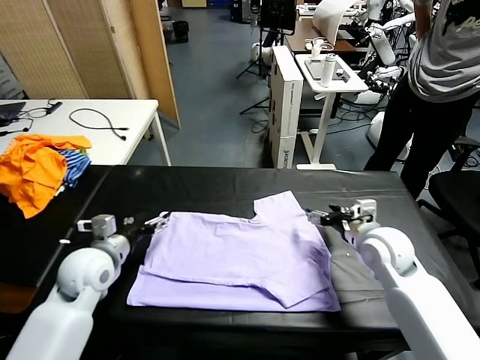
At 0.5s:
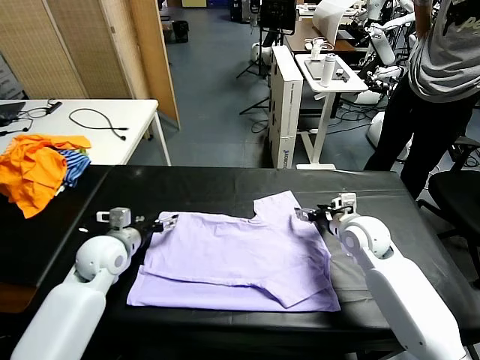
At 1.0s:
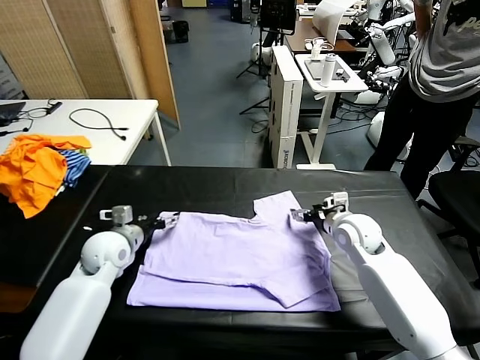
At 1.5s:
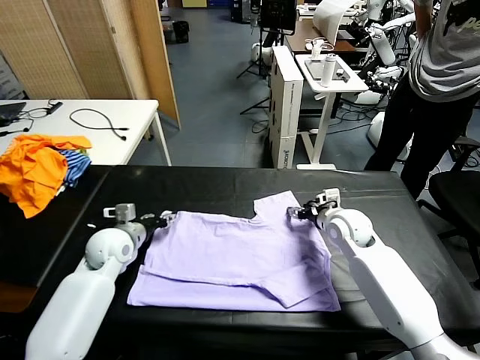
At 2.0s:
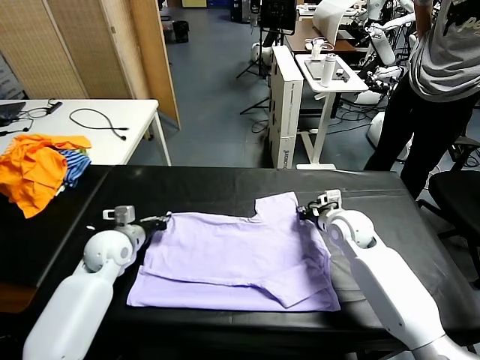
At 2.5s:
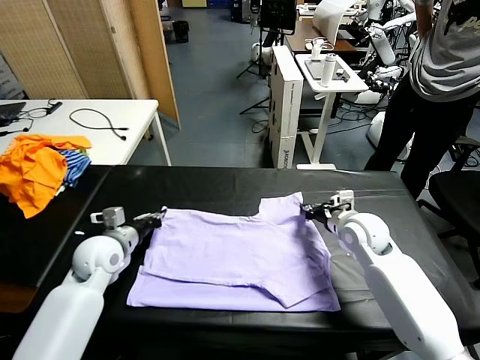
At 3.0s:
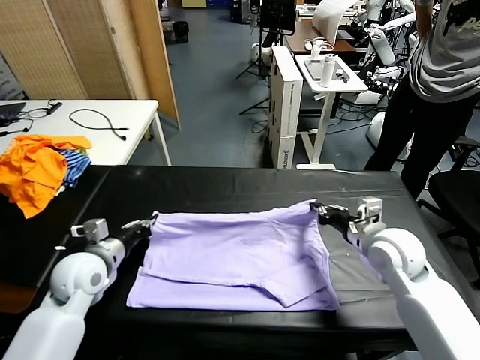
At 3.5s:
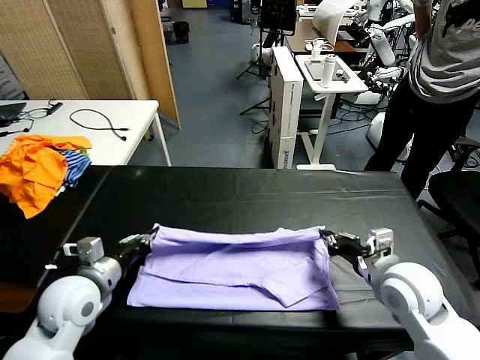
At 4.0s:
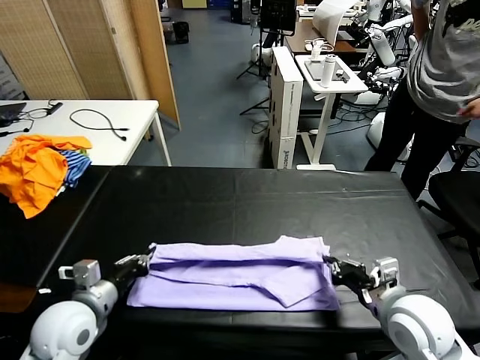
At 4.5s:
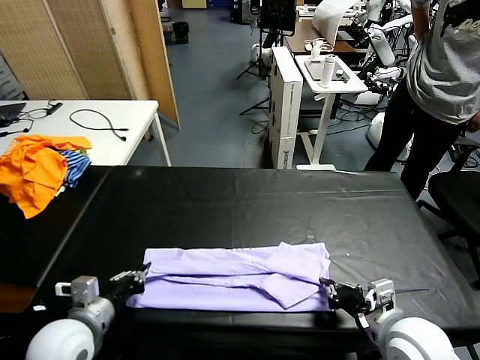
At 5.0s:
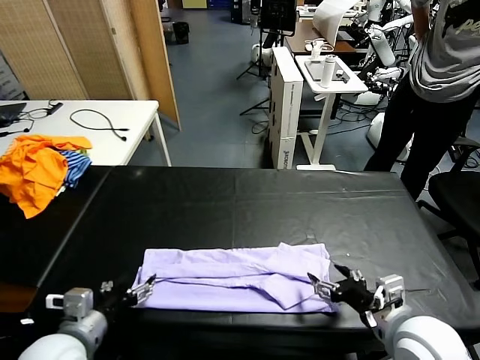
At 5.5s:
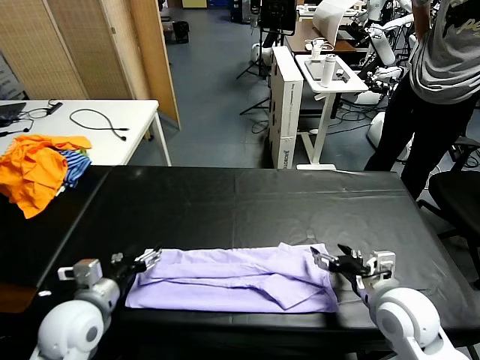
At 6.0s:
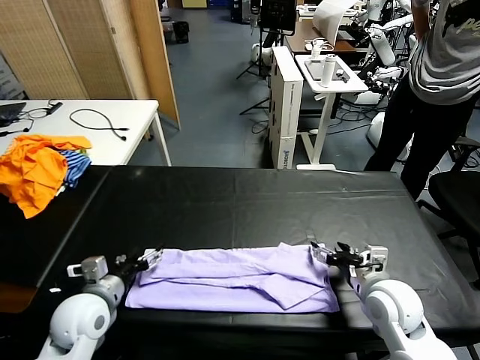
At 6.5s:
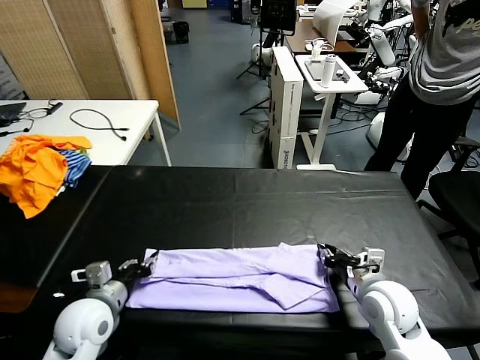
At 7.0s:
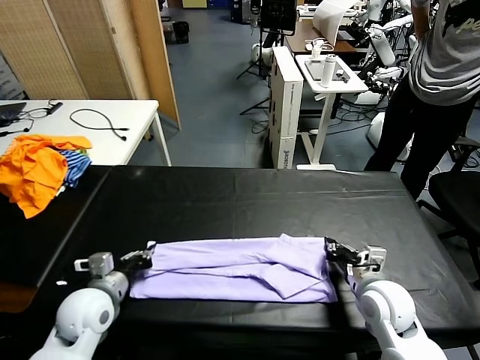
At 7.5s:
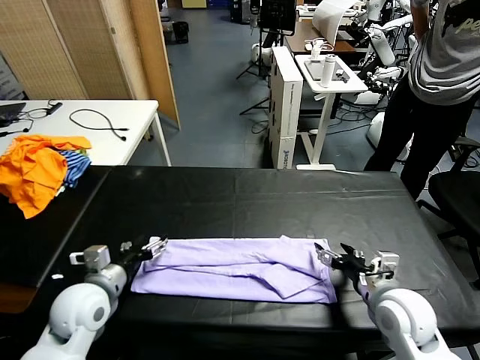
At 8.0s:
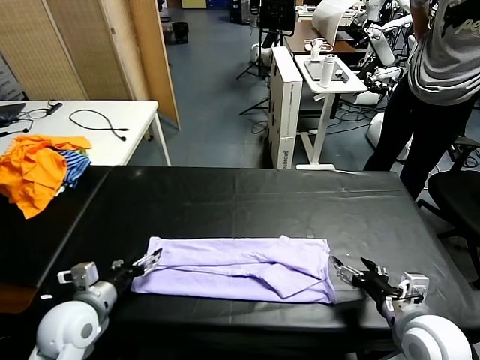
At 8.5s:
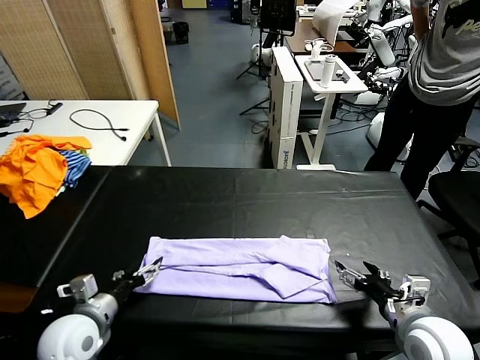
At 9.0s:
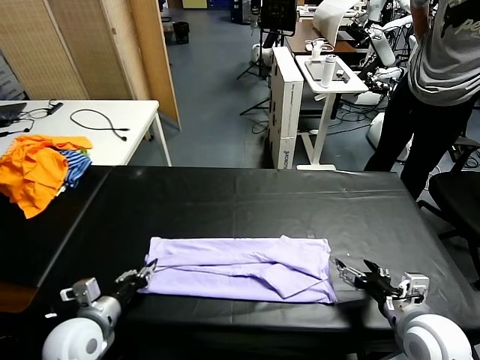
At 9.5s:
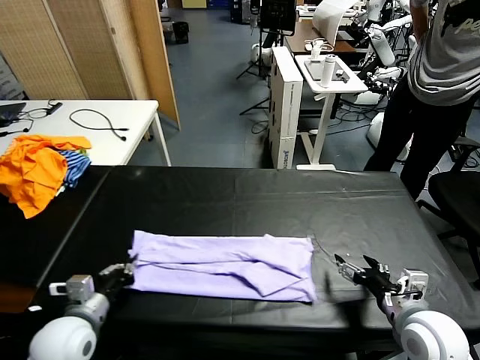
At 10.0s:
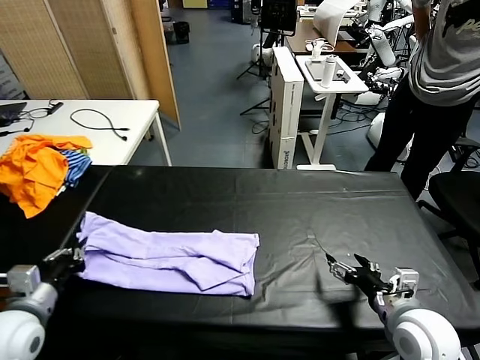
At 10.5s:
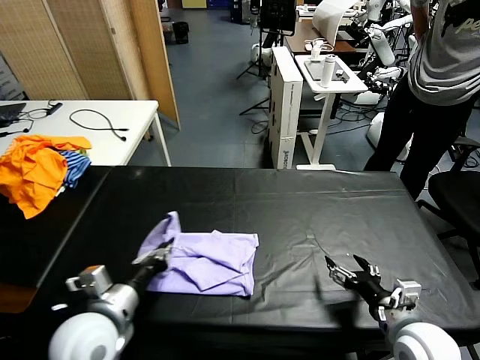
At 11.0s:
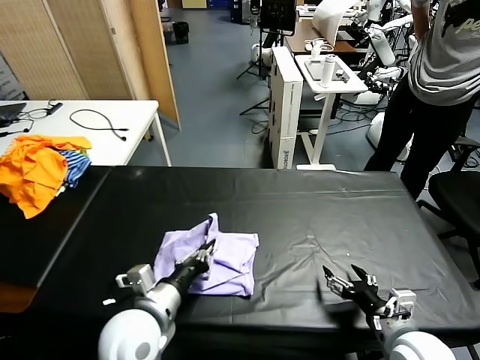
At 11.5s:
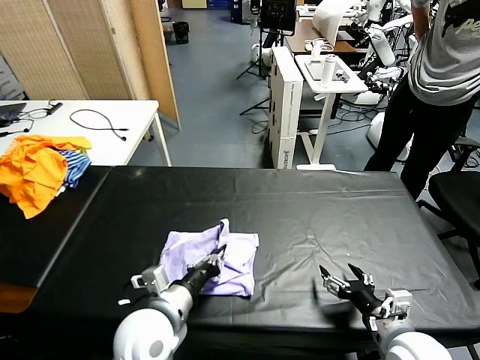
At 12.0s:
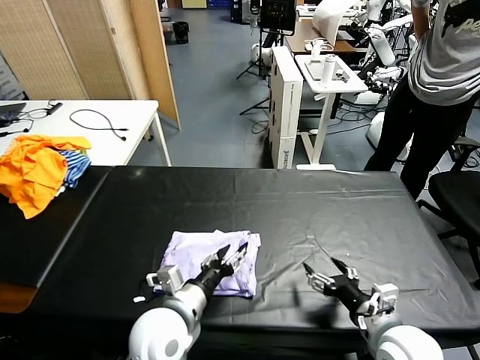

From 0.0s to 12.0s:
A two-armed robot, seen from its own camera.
Task of the whole recording: fold and organize the clothes.
Step, from 0.0s to 1.5s: use both grippers simultaneously to clamp the upper edge of the clothing fabric.
Step, from 2.0s to 7.5s: use both grippers to drag the upper edge of the fabric backward and fold it over the lower edge.
Step, from 8.0s to 9.0s: use the left gripper to clamp the left edge of the fabric.
From 0.0s to 2.0s: The right gripper closes. The left gripper travels forward by some 5 cm, and closes its fingers.
From 2.0s to 4.0s: The two grippers go approximately 20 cm backward.
From 4.0s to 6.0s: The right gripper is displaced forward by roughly 5 cm, and opens up, while the left gripper opens up.
From 6.0s to 8.0s: The right gripper goes about 10 cm backward, and closes, then reopens. The left gripper closes, then opens again.
From 8.0s to 10.0s: The left gripper moves upward and to the left, some 10 cm, and closes up.
From 10.0s to 12.0s: The left gripper heads to the right, covering about 25 cm, and opens, while the right gripper shifts by approximately 5 cm.

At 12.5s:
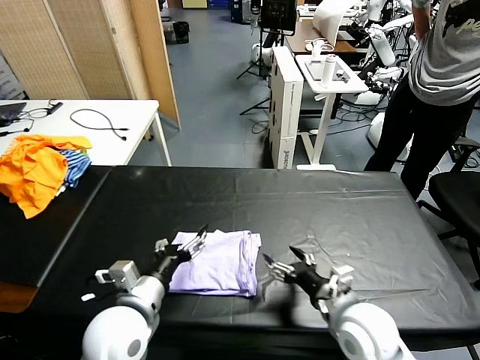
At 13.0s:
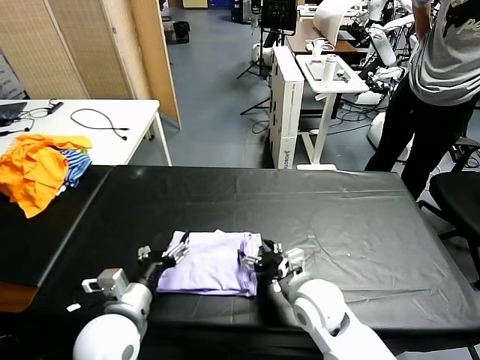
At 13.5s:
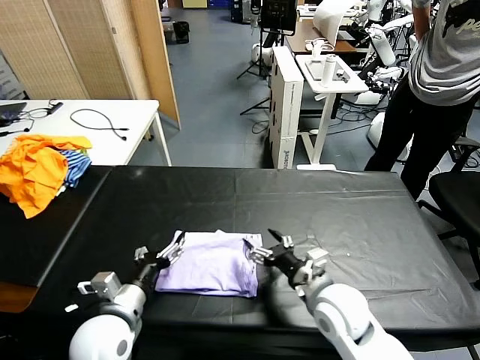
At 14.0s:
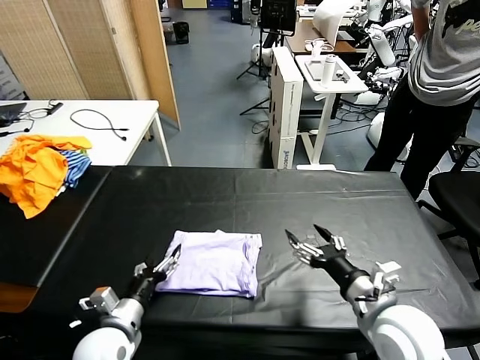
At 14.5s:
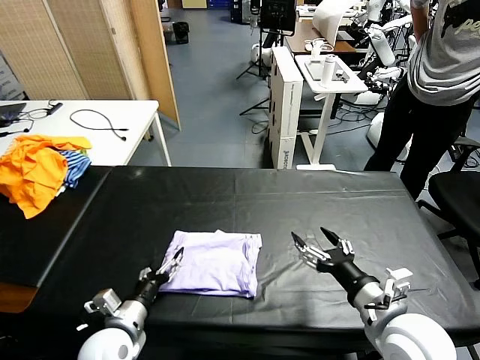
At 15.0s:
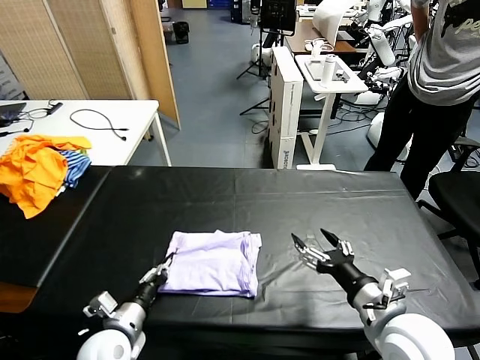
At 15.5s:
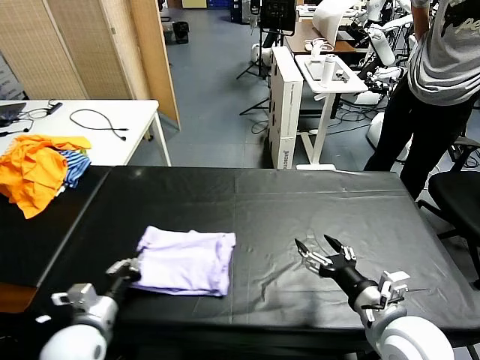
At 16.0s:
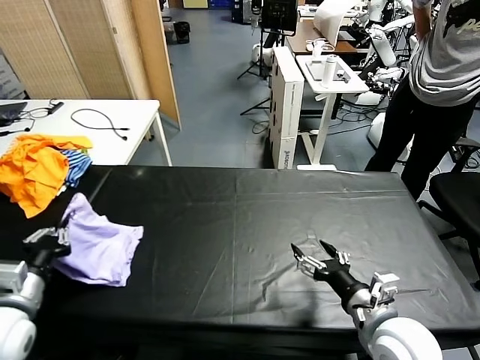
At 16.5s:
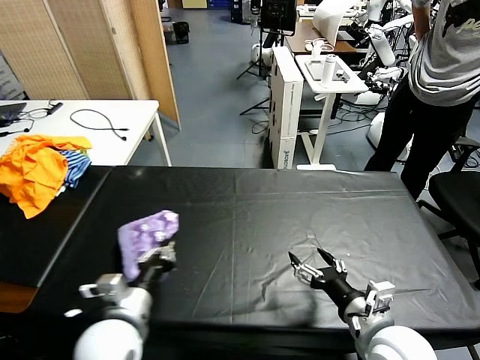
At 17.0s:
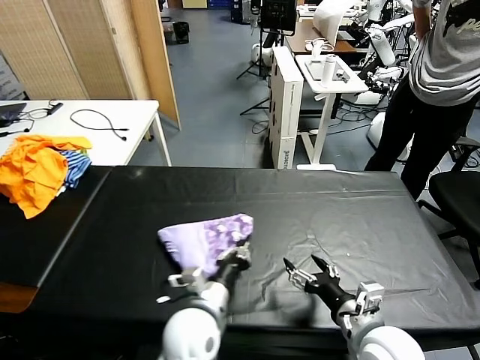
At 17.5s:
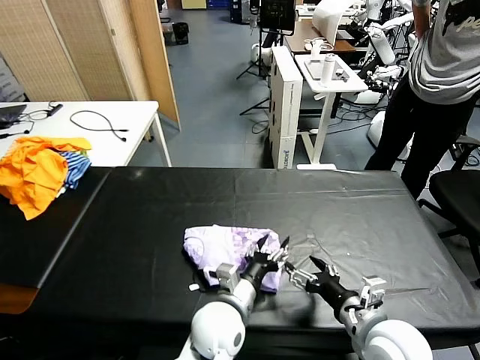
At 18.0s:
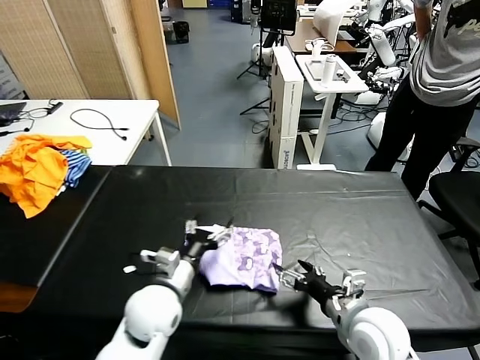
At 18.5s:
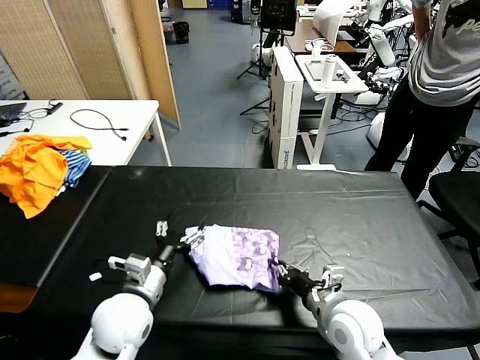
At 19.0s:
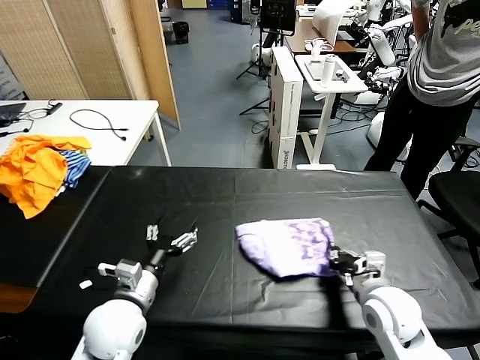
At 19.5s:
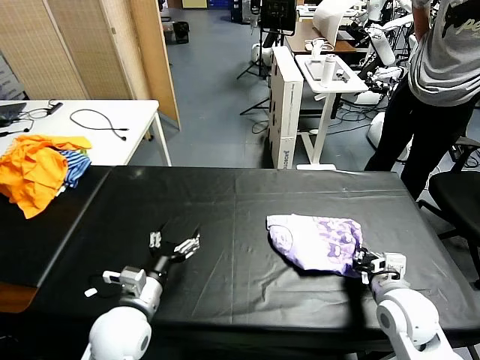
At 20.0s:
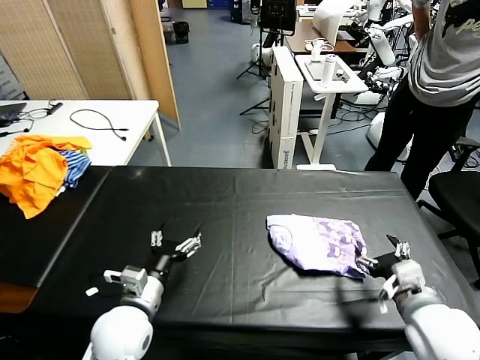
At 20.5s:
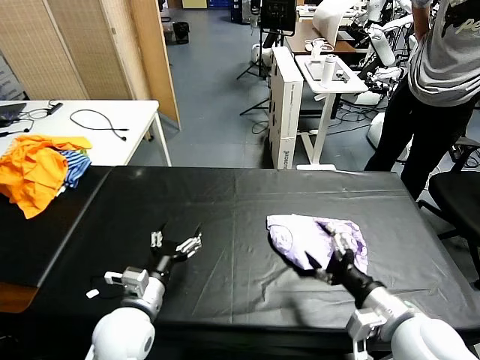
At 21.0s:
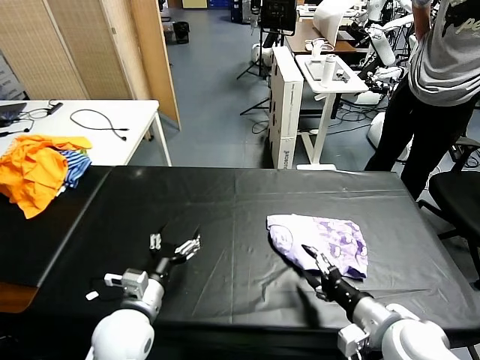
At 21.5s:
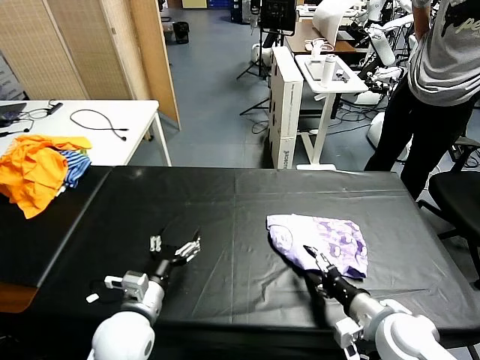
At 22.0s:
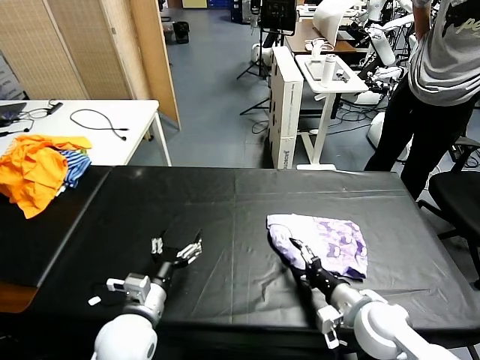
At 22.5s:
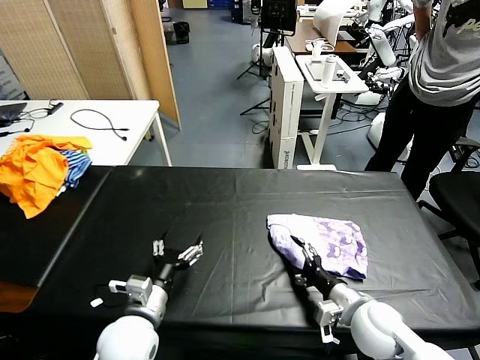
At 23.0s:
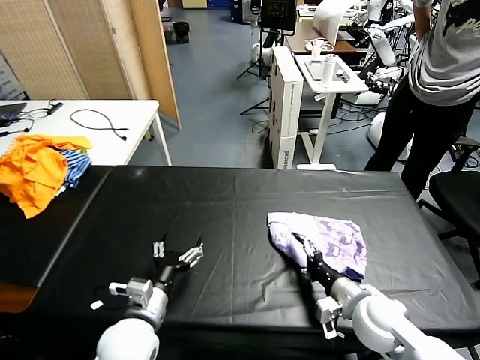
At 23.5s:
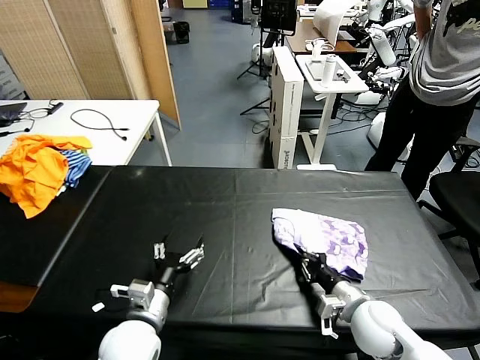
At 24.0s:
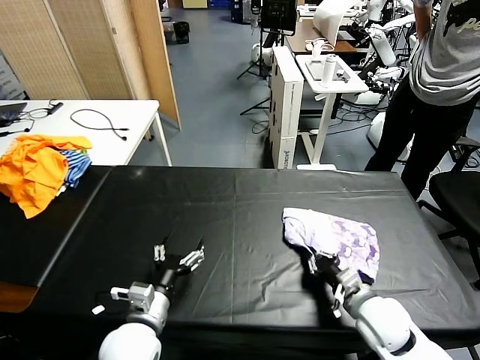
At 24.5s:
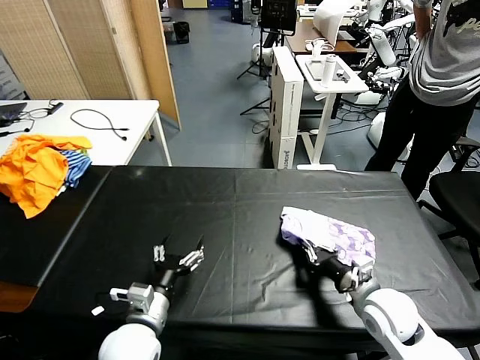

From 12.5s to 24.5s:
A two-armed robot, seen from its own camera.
Task of the whole recording: fold and organize the clothes.
Step, from 14.0s to 17.5s: Flip the folded clothes over with left gripper.
From 12.5s to 14.5s: The right gripper moves to the right, upward and backward, approximately 10 cm; the left gripper is displaced downward and to the left by roughly 15 cm.
From 14.5s to 16.5s: The left gripper heads upward, covering approximately 10 cm, reaches some 10 cm to the left, then returns, and closes.
From 16.5s to 18.5s: The left gripper moves some 15 cm to the right and comes back, and opens its fingers, while the right gripper travels forward and downward by about 10 cm, and closes its fingers.
From 18.5s to 20.5s: The right gripper shifts roughly 10 cm to the right, upward and backward, and opens.
From 20.5s to 22.5s: The right gripper heads downward and forward, covering about 10 cm.
From 22.5s to 24.5s: The right gripper closes its fingers.

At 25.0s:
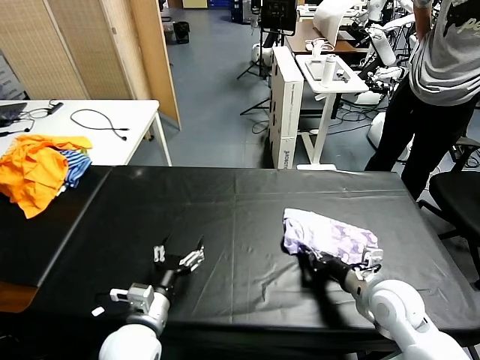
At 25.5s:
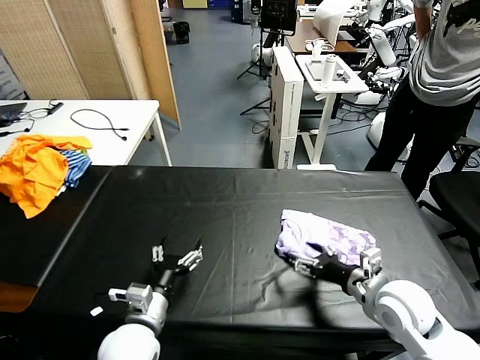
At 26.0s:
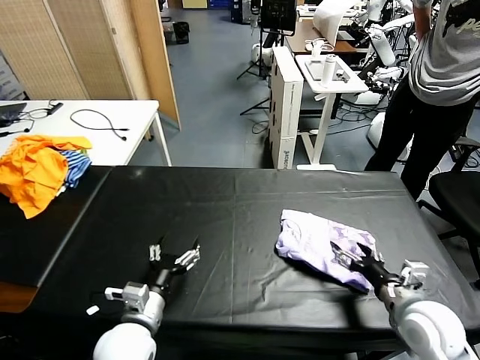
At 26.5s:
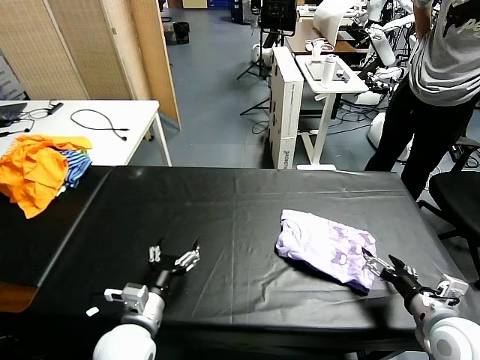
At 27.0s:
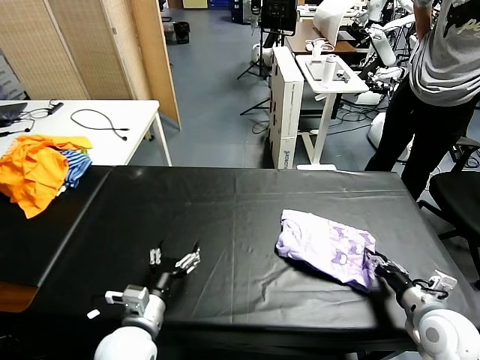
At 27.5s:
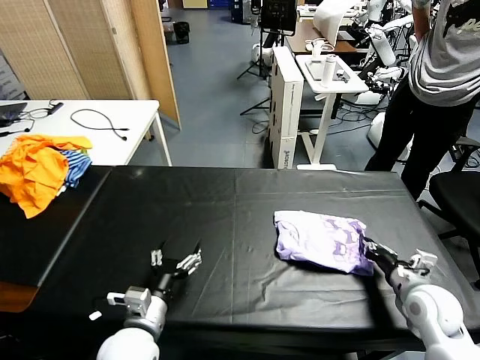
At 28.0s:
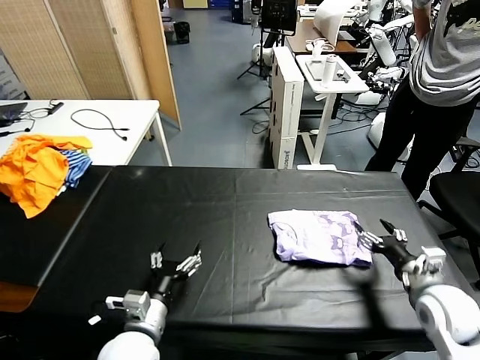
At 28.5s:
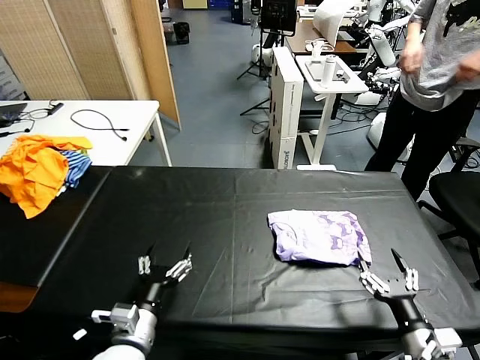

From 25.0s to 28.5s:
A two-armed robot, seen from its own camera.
Task of the whole recording: fold and organize the clothes.
Step, from 25.0s to 27.5s: Drag the clothes to the center of the table.
From 25.0s to 27.0s: The right gripper goes roughly 10 cm to the right and backward, and opens.
From 27.0s to 28.5s: The right gripper is displaced backward by approximately 10 cm, and opens its fingers.
